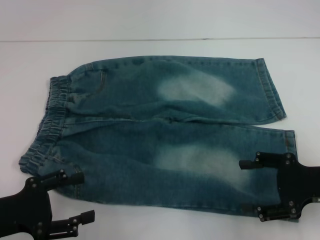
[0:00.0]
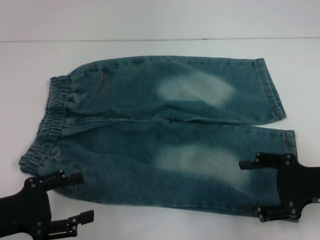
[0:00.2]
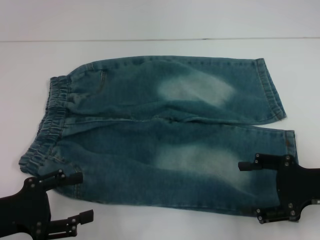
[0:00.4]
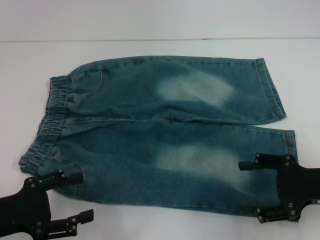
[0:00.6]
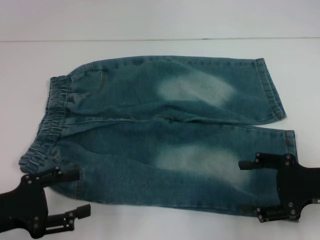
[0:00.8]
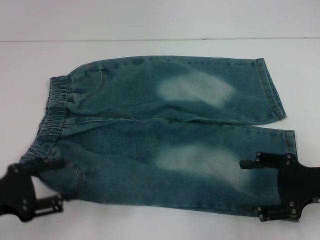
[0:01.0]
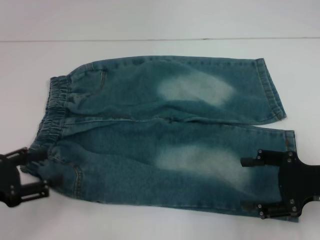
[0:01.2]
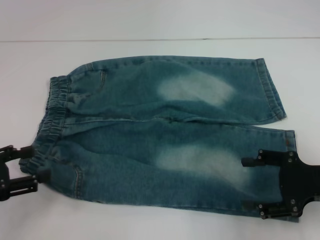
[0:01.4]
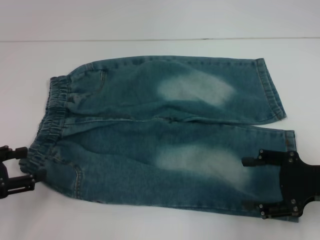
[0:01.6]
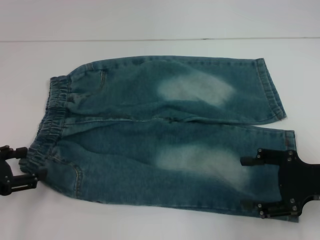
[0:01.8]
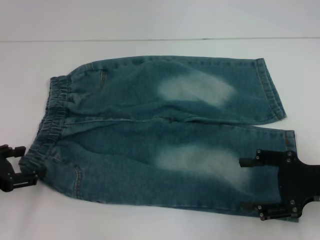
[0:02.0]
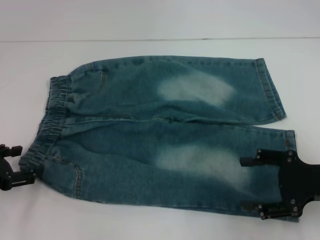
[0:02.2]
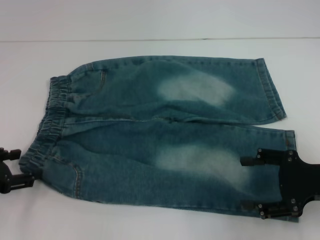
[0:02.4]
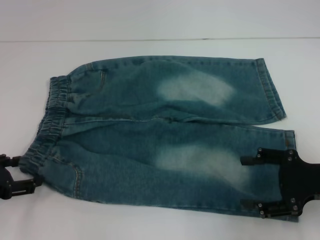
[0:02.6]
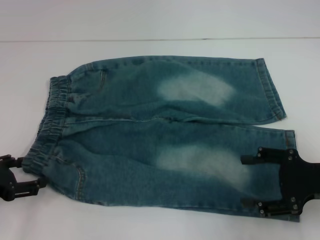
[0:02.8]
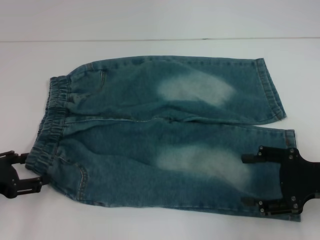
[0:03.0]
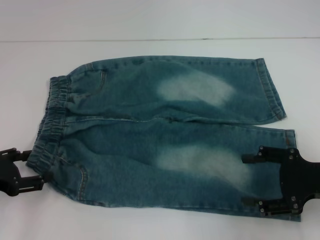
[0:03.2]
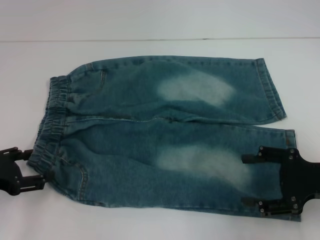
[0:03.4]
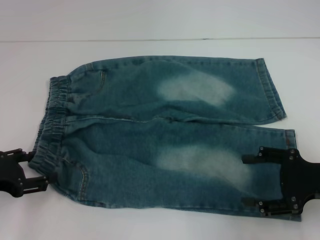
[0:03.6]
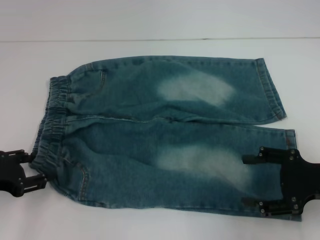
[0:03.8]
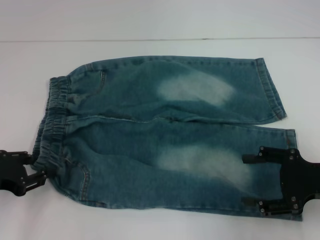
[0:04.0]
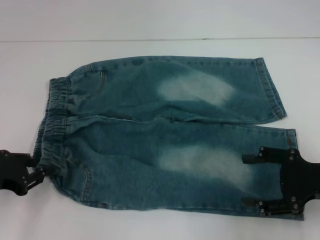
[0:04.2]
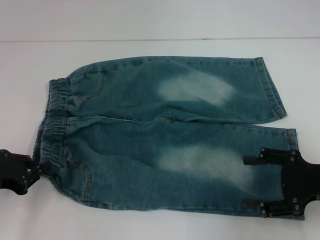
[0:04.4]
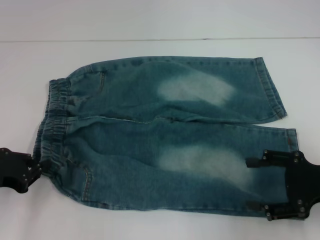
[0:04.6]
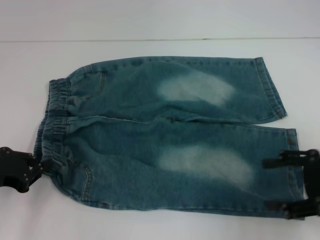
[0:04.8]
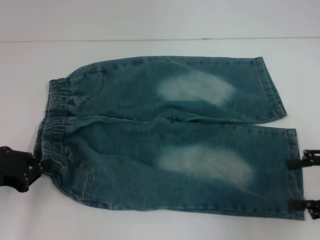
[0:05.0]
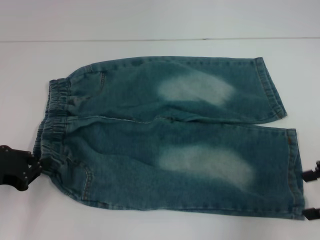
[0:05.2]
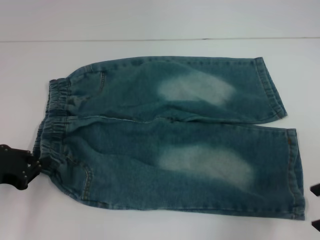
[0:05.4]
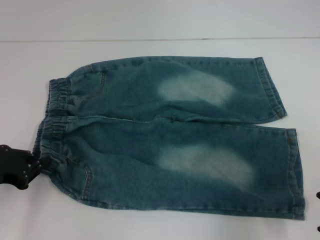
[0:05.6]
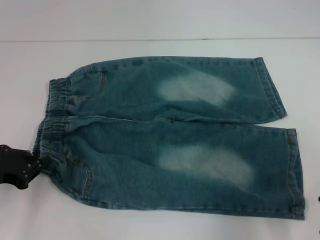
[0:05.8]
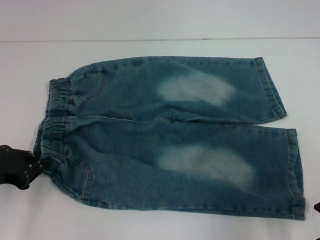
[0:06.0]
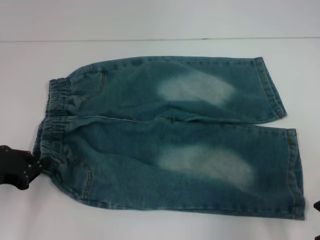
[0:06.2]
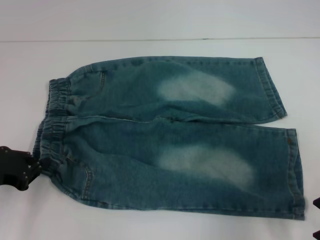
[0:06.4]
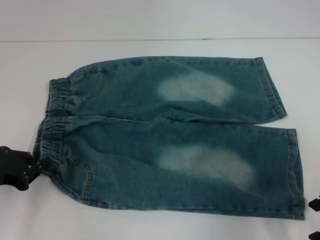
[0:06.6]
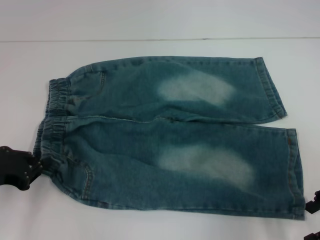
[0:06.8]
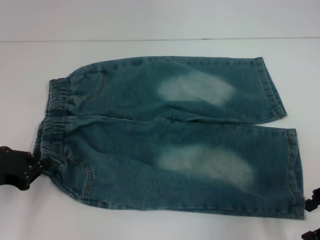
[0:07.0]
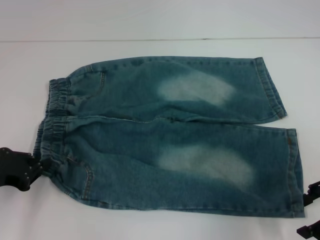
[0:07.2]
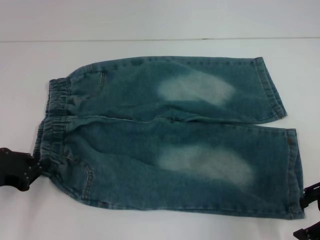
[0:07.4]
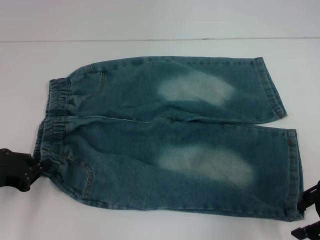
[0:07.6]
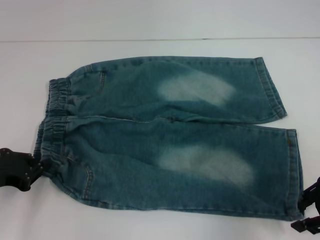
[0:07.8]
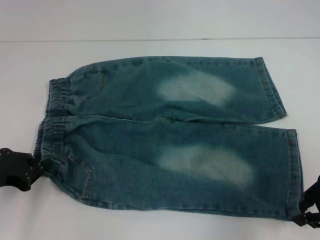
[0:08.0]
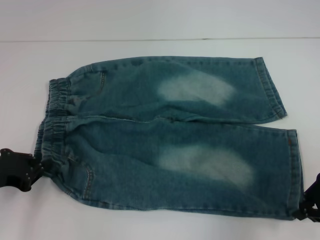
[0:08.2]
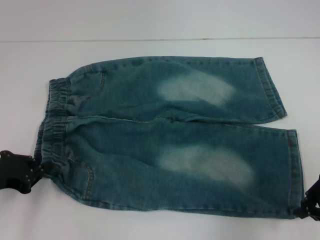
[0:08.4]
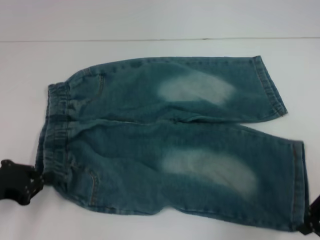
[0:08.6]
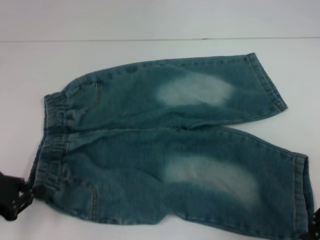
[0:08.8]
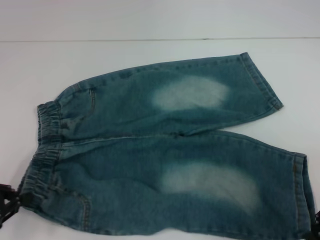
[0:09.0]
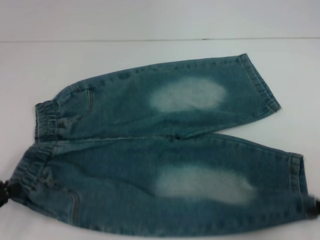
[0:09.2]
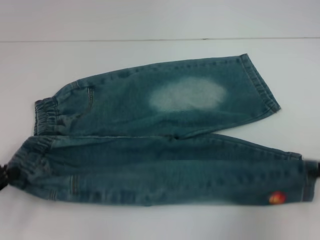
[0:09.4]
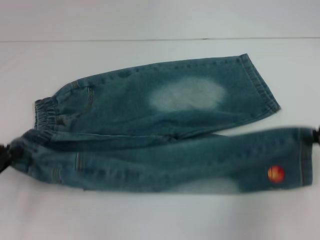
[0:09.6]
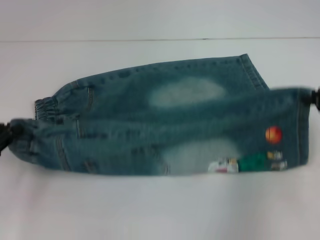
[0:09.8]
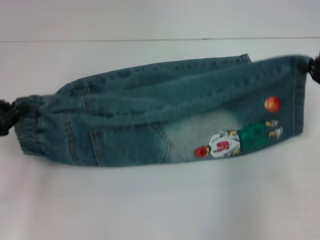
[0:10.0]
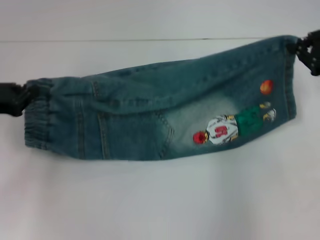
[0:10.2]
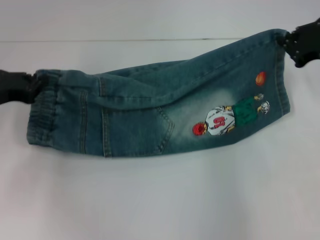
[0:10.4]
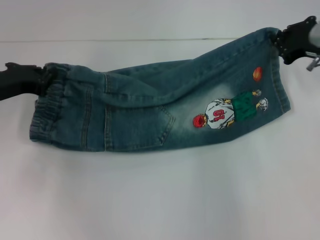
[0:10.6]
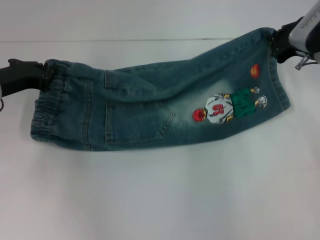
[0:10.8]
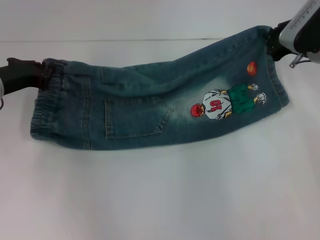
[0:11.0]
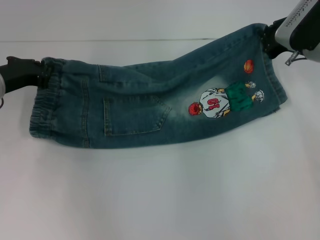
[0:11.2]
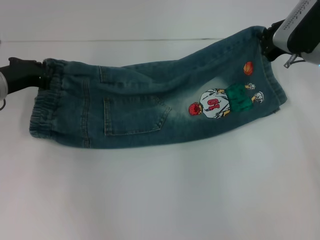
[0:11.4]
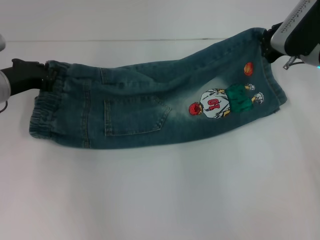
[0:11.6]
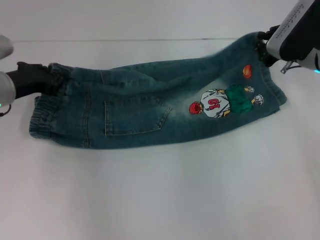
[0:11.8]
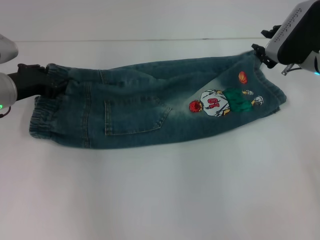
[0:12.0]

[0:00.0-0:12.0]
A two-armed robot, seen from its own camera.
Step, 0:00.0 to 0:08.2: Hold the lower left waistband with your left hand.
Step, 0:08.6 to 0:11.8: Fold upward with your right hand.
0:00.0 to 0:01.6: The left gripper ends up some 5 cm from where it was.
0:01.6 to 0:03.0: The grippers make only small movements.
0:03.0 to 0:04.4: The left gripper closes.
0:04.4 to 0:06.0: The right gripper is displaced upward by roughly 5 cm.
0:06.0 to 0:07.6: There are only small adjustments of the grippers.
0:07.6 to 0:09.0: The right gripper closes up. Meanwhile the left gripper shifts approximately 5 cm backward.
0:09.0 to 0:10.4: Both grippers travel together forward, some 15 cm.
0:10.4 to 0:12.0: The left gripper moves roughly 5 cm. The right gripper travels to the left by approximately 5 cm.

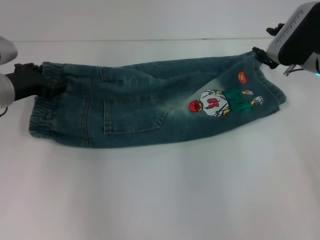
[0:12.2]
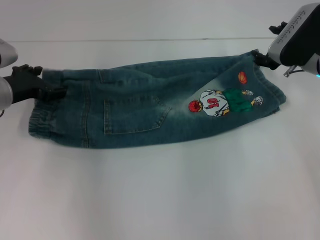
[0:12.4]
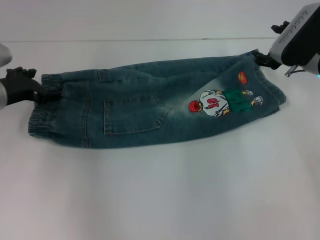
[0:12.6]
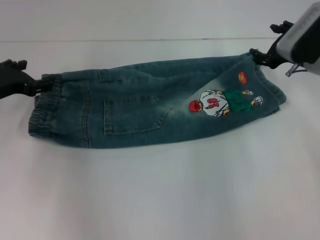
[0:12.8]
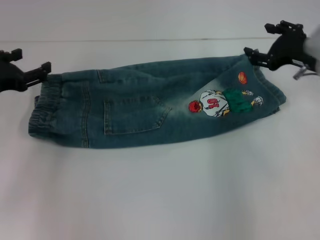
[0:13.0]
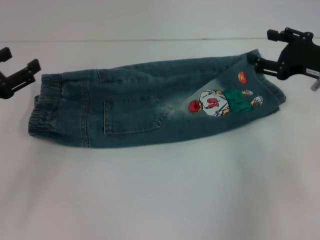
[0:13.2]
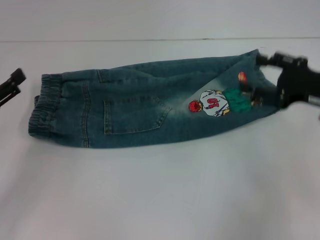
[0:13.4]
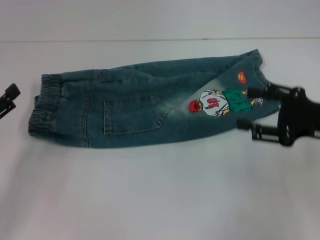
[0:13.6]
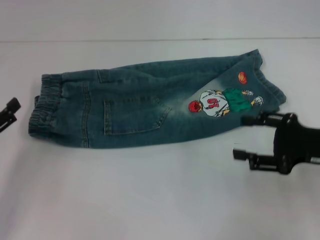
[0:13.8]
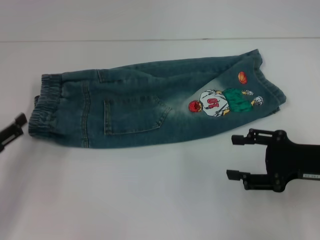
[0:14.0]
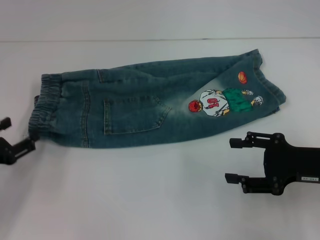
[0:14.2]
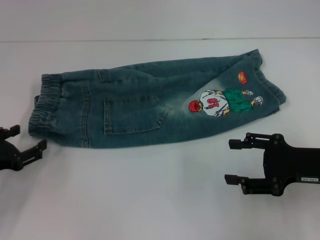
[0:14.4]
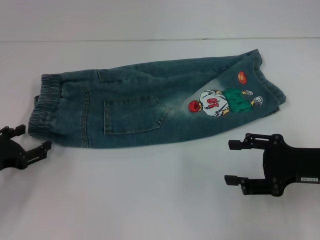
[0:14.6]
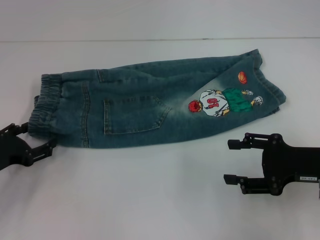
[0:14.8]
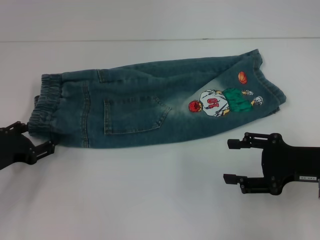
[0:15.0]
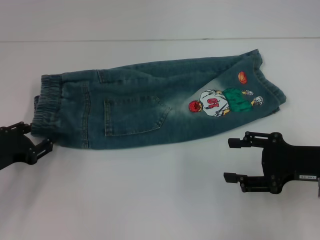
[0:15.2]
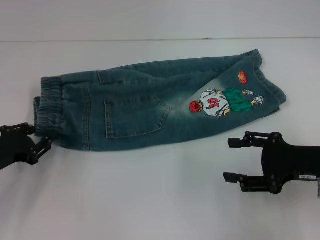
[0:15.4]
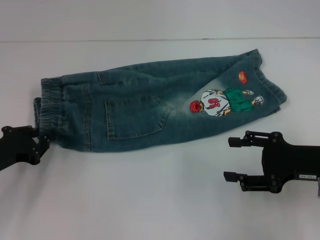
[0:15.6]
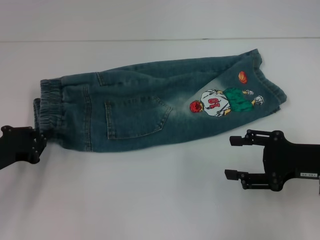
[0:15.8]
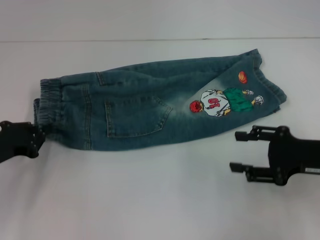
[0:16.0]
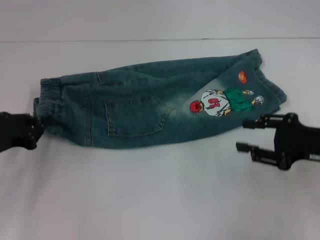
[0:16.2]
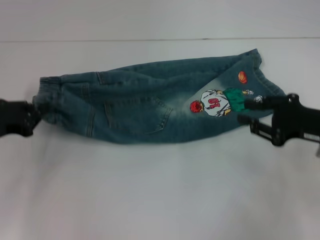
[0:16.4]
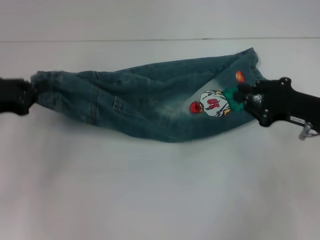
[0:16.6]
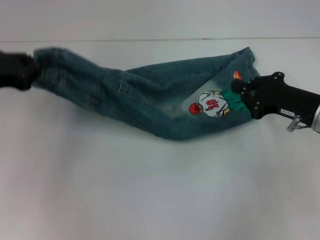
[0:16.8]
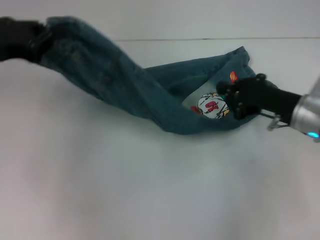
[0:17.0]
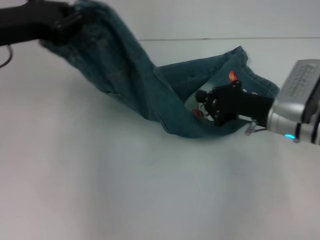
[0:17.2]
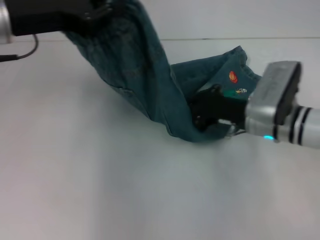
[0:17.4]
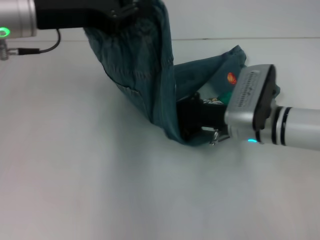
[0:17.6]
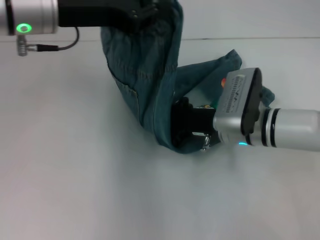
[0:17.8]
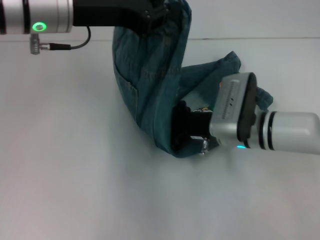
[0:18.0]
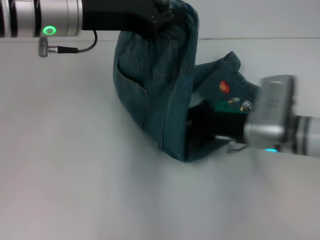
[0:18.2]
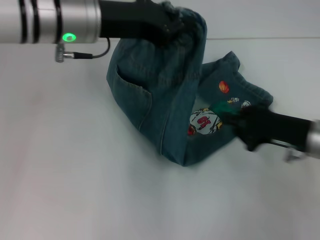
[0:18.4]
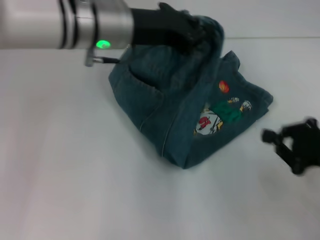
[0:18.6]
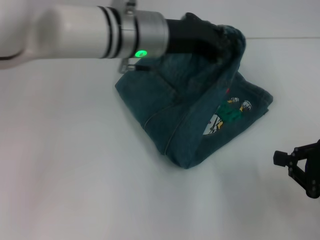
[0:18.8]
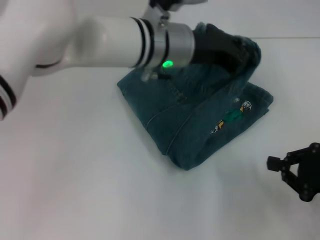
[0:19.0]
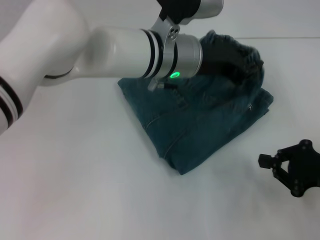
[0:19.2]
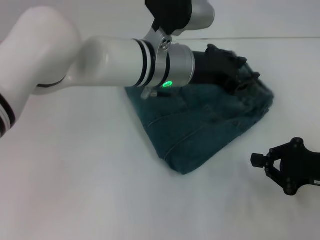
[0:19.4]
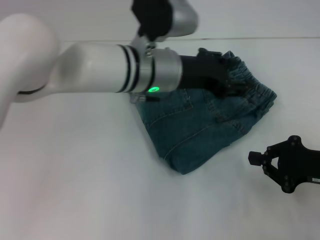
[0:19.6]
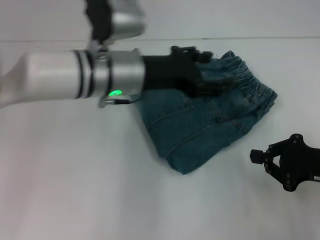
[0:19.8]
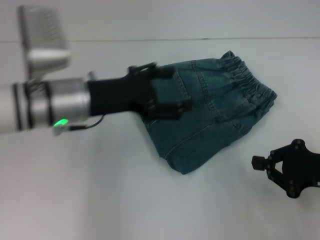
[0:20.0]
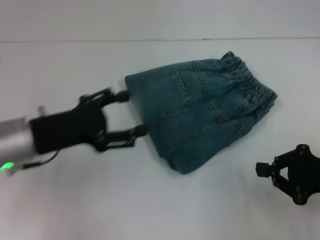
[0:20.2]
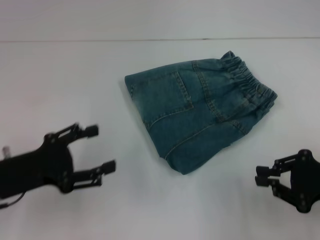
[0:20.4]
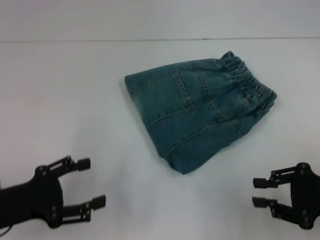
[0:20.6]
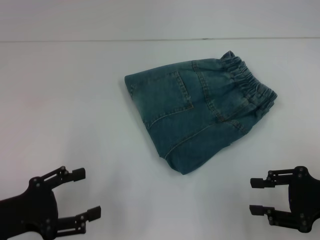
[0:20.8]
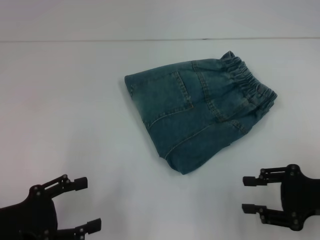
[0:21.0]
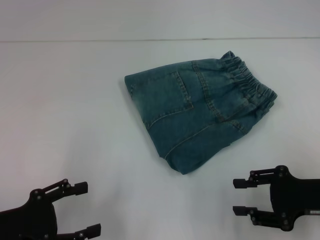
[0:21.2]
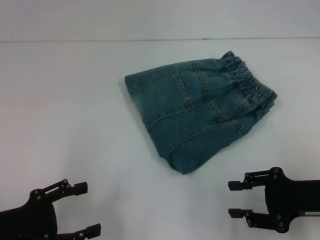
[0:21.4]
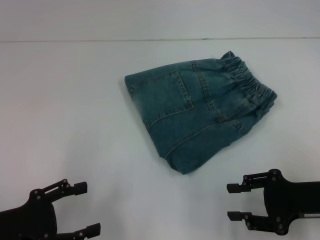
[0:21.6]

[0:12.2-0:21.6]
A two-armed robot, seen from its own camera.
Step, 0:12.2 to 0:12.4: Fold upward with your left hand.
Step, 0:12.8 to 0:15.8: Hold the waistband with your left hand.
Step, 0:16.0 to 0:18.0: Press the middle of the pants with your right hand.
Step, 0:18.2 to 0:19.4: Fold to the right with your left hand.
0:12.2 to 0:13.8: The right gripper is displaced backward by approximately 15 cm, and opens its fingers. Meanwhile the left gripper travels backward and to the left by some 15 cm, and opens.
0:13.8 to 0:15.4: The left gripper moves some 5 cm, and closes.
0:15.4 to 0:17.0: The right gripper heads forward, covering about 5 cm, and closes, while the left gripper travels upward and forward by approximately 15 cm, and closes.
0:17.0 to 0:18.4: The left gripper goes approximately 15 cm to the right, while the right gripper goes to the left and returns, roughly 10 cm each way.
0:18.4 to 0:20.0: The right gripper shifts roughly 5 cm backward. Meanwhile the left gripper goes about 10 cm downward, travels to the right and back again, some 10 cm each way, and opens its fingers.
0:20.0 to 0:21.6: The right gripper opens its fingers. Meanwhile the left gripper goes some 20 cm backward, to the left and downward.
